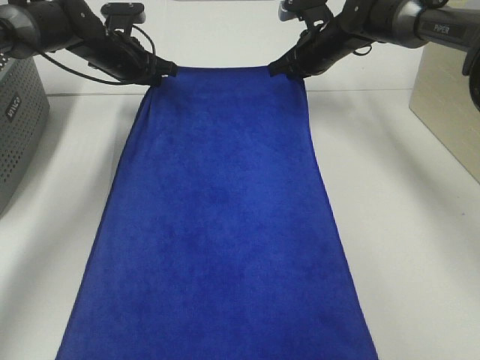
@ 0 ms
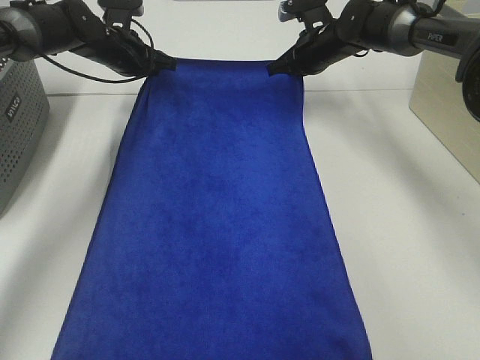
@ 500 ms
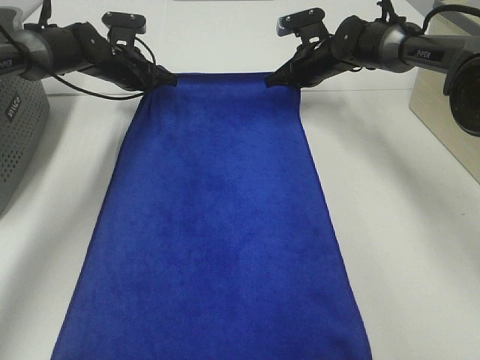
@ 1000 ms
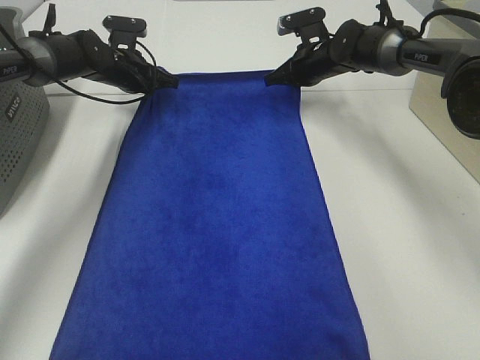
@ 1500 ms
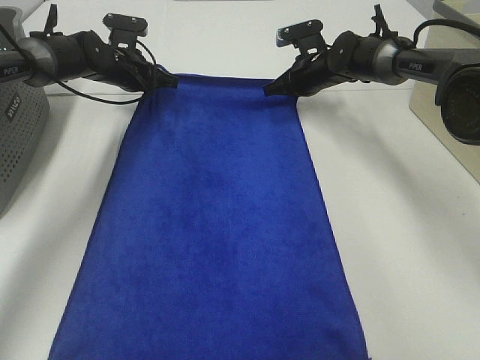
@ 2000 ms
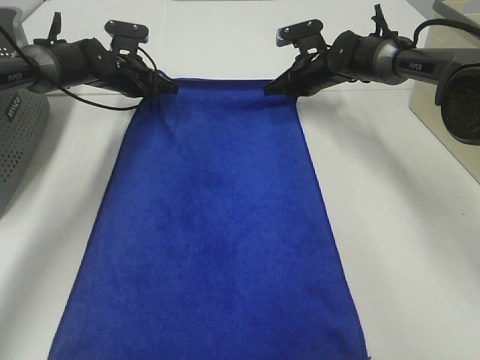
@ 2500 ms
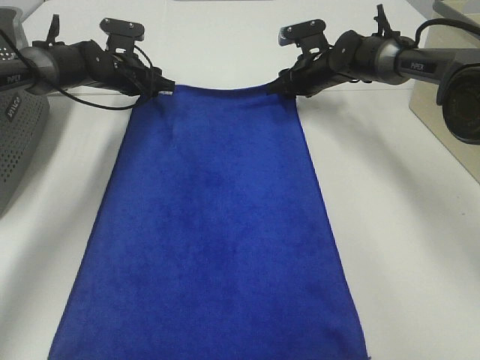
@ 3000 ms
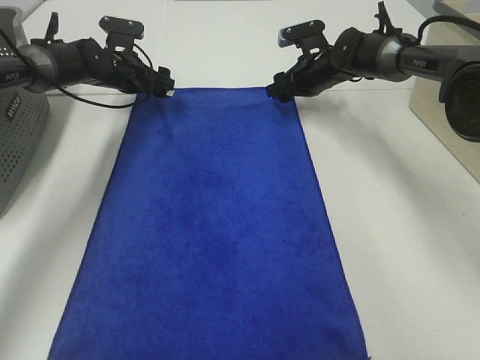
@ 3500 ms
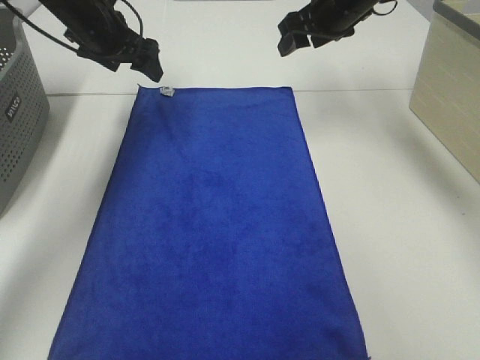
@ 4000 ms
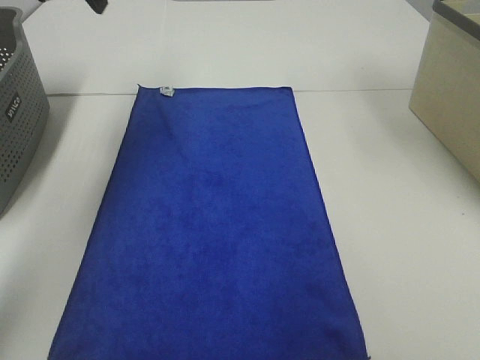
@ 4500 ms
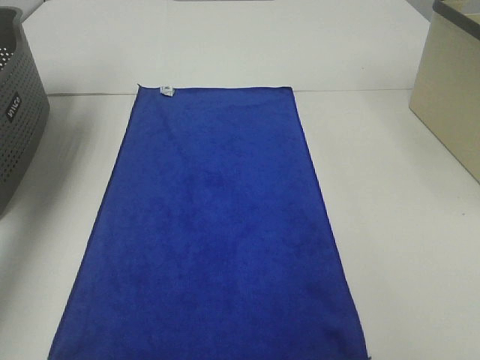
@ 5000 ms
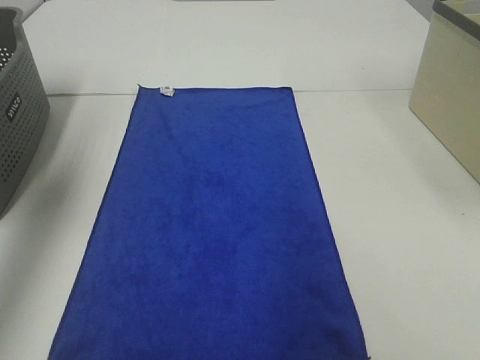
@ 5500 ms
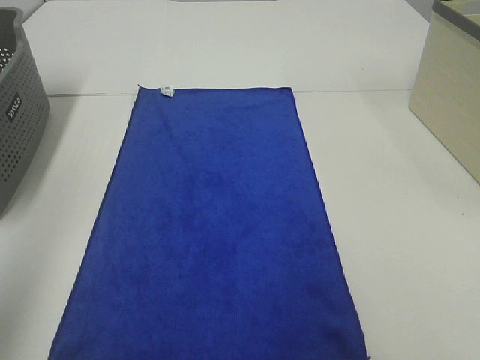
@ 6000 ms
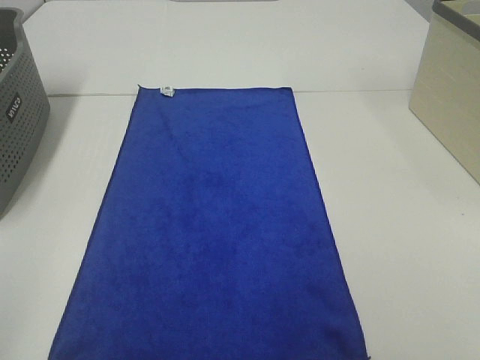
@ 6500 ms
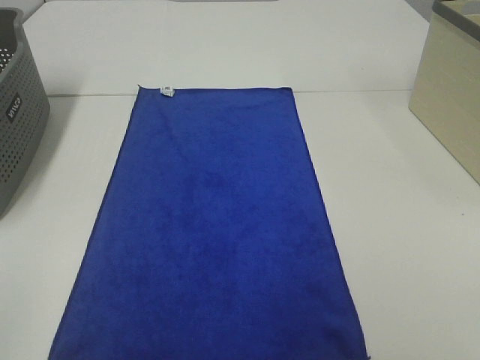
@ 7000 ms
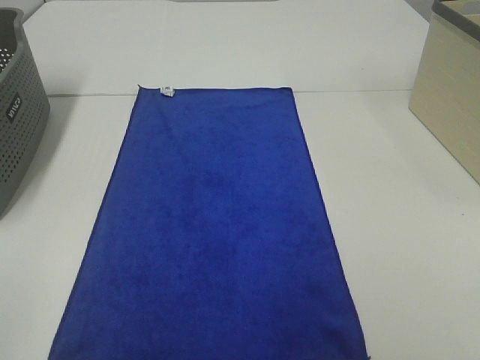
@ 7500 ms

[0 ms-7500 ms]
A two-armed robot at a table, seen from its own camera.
Task of the whole recording: Remove the towel and place it.
0 ms to 2000 ms: The right gripper is displaced downward by roughly 5 cm.
2000 ms to 4000 ms: The right gripper moves upward, about 15 cm, and opens its fingers, while the left gripper goes about 15 cm upward and backward, and opens its fingers.
4000 ms to 5500 ms: The right gripper shifts roughly 30 cm backward, upward and to the right. The left gripper travels backward, upward and to the left by some 30 cm.
5500 ms to 7500 ms: The left gripper goes about 35 cm backward.

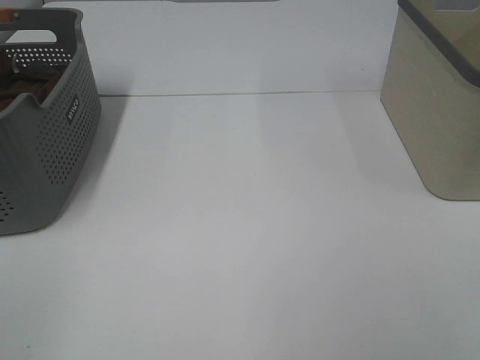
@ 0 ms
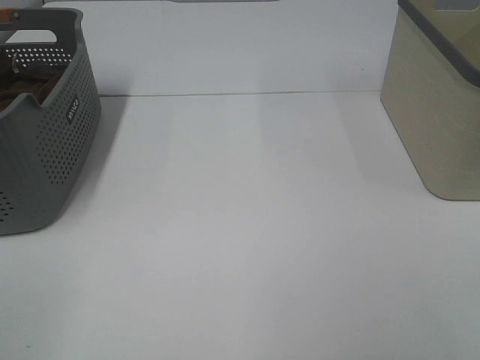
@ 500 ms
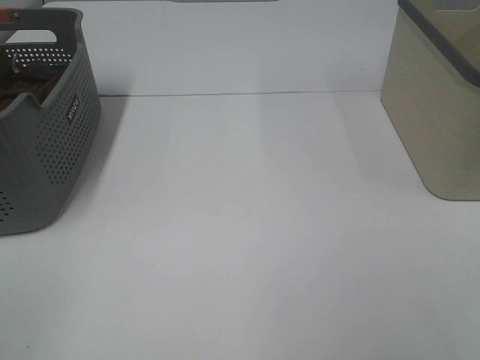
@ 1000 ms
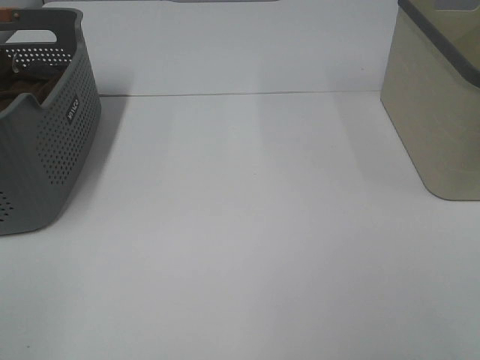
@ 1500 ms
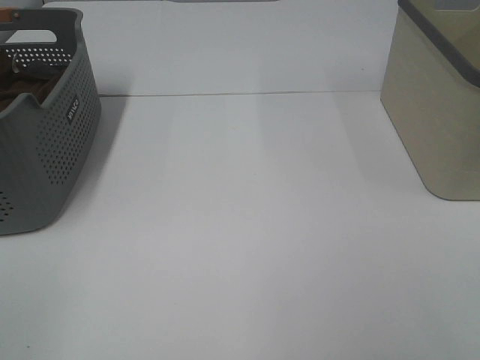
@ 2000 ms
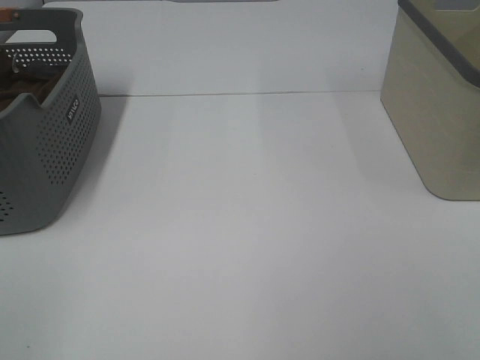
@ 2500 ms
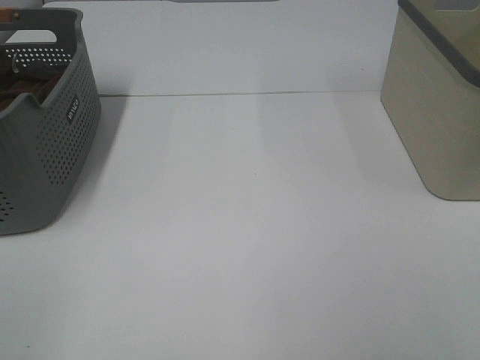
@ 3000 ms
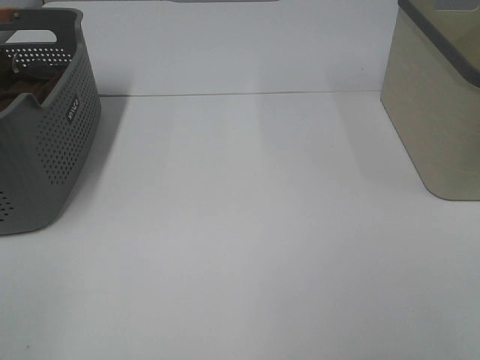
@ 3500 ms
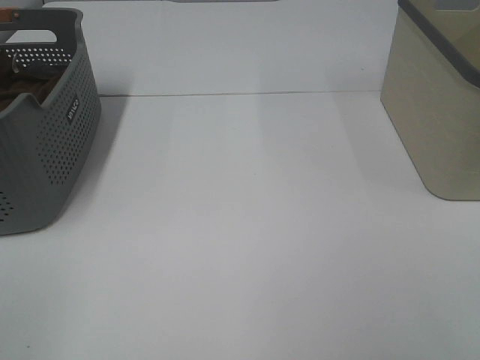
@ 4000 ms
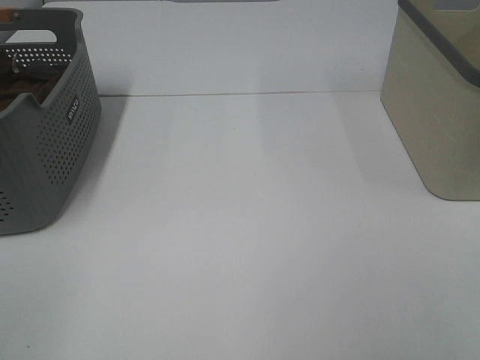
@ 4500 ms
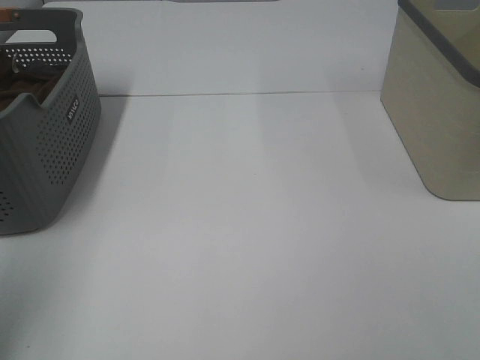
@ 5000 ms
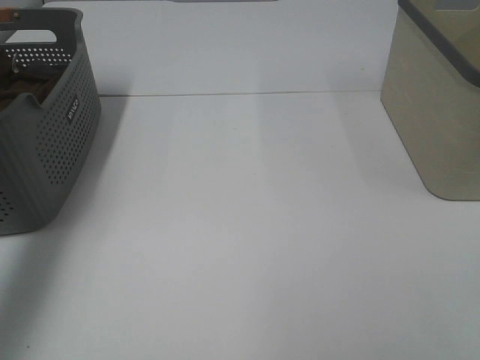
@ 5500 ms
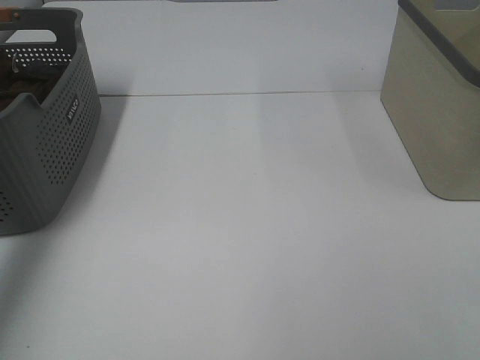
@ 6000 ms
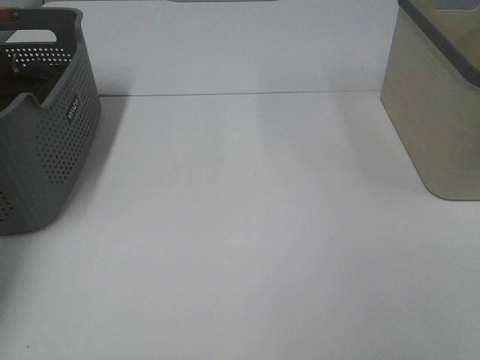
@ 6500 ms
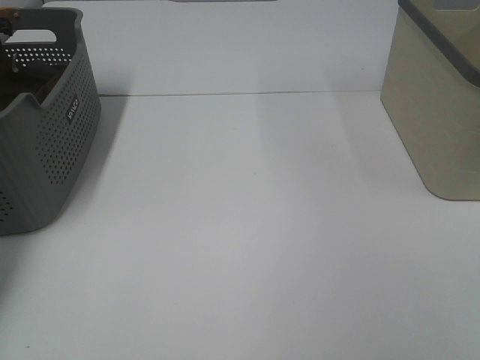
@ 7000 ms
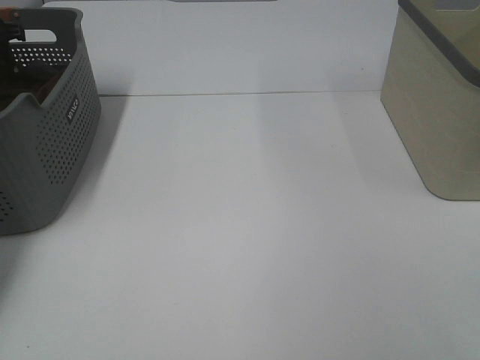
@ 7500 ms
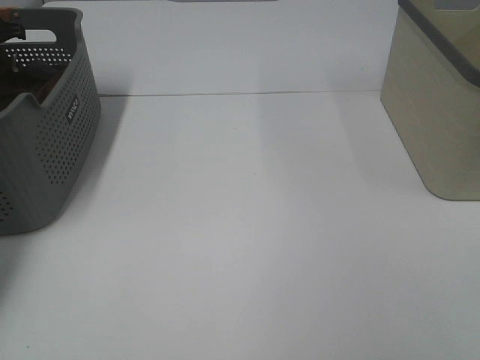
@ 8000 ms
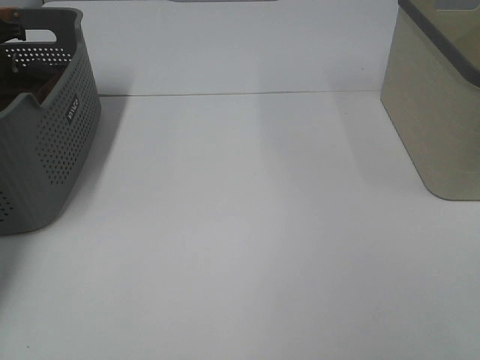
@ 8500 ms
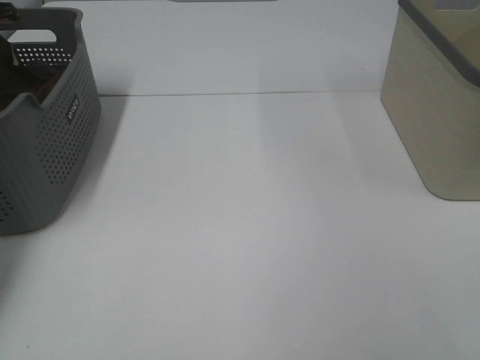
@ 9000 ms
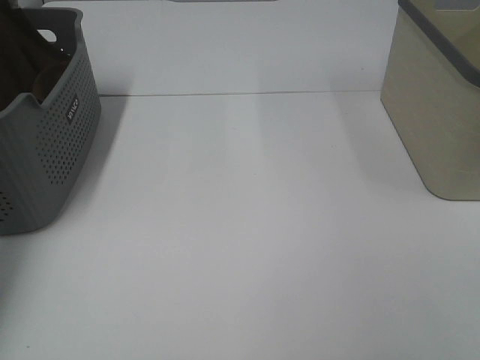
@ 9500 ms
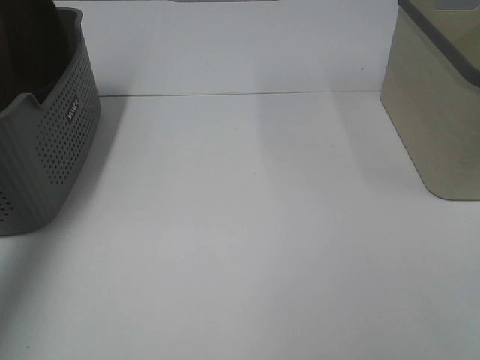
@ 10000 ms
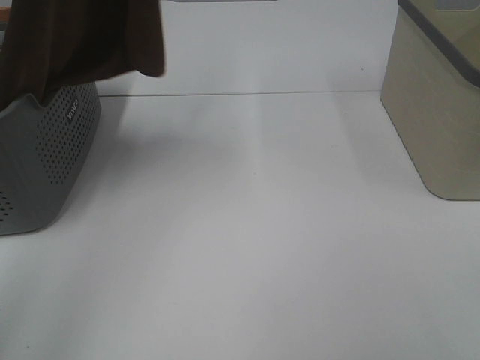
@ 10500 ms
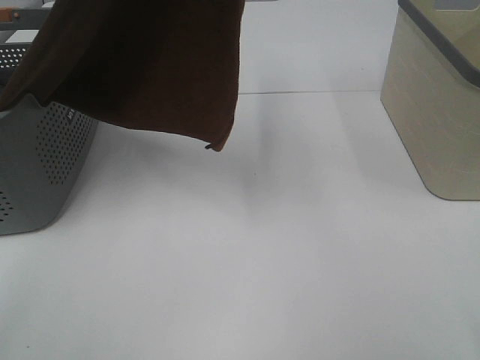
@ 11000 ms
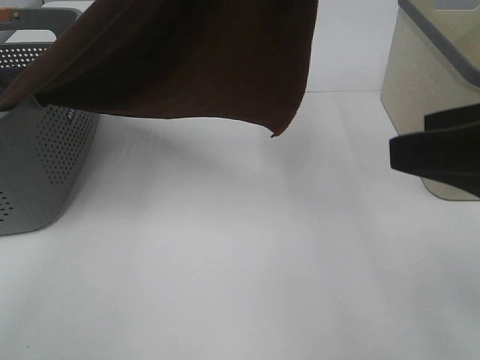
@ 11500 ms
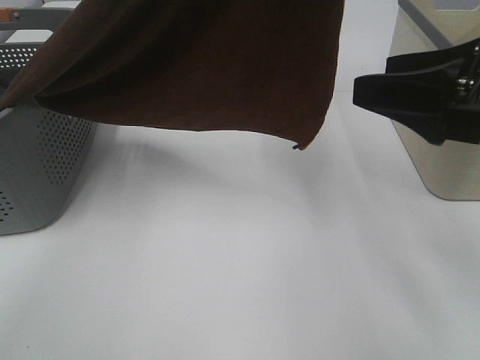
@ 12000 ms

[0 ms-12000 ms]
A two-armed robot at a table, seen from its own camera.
Task of the whole recording: Remove the towel and place it.
0 ms to 4000 ms: The two grippers keep their place.
4000 ms to 6000 ms: The left gripper travels forward by some 40 cm.
6000 ms to 8000 ms: The left gripper shifts about 20 cm forward, downward and to the left, and closes up.
8000 ms to 10000 ms: The left gripper shifts about 30 cm upward and backward, and closes.
10000 ms to 12000 ms: The right gripper shifts some 20 cm forward. The left gripper moves to the right and backward, some 35 cm.

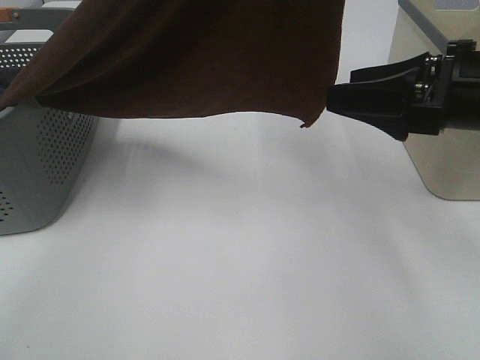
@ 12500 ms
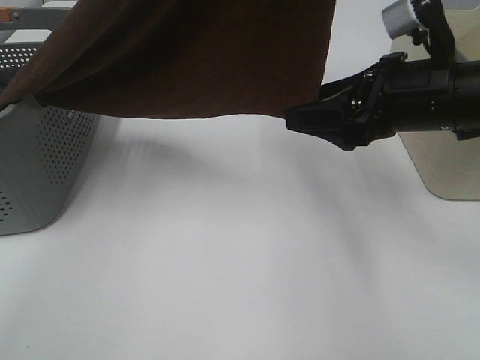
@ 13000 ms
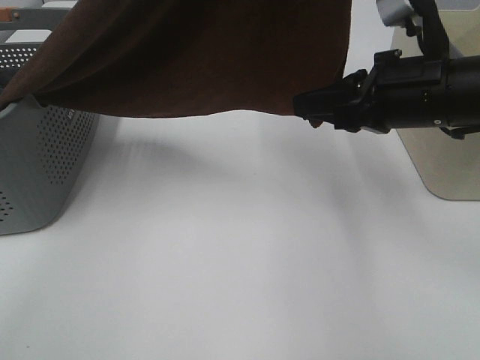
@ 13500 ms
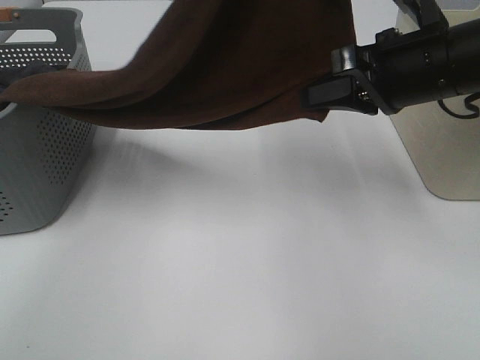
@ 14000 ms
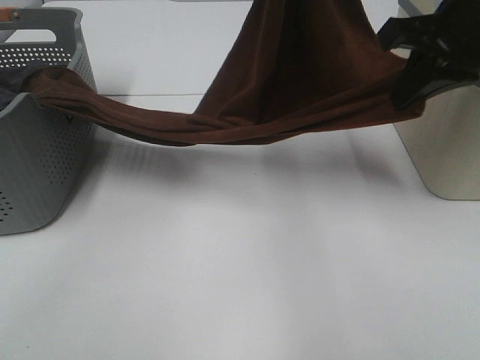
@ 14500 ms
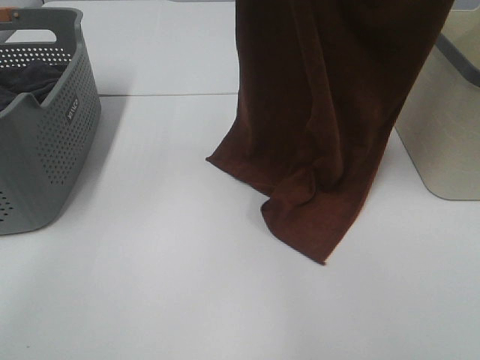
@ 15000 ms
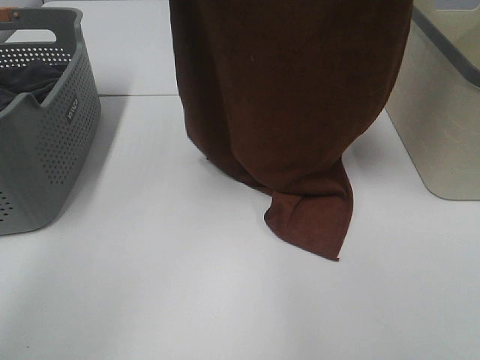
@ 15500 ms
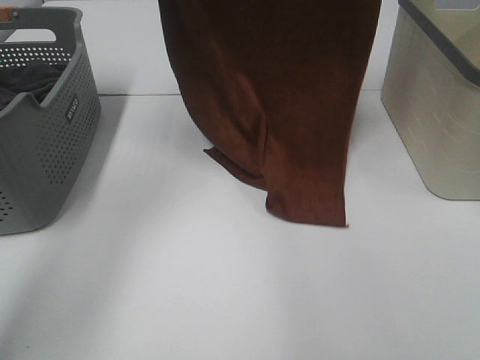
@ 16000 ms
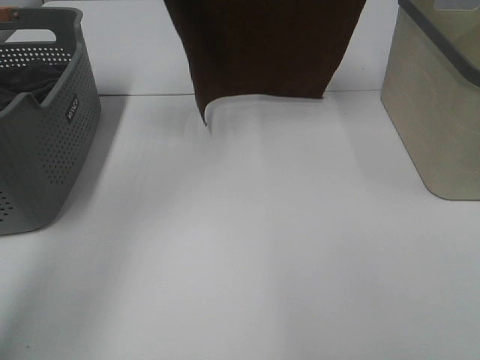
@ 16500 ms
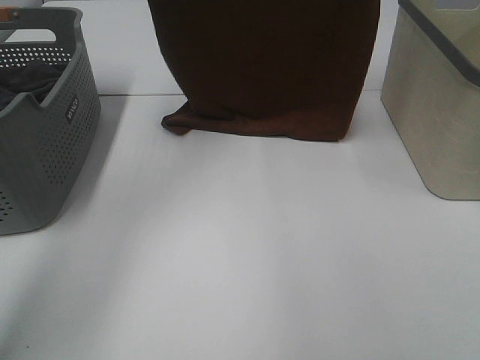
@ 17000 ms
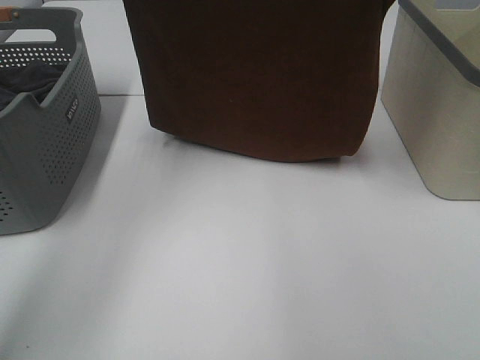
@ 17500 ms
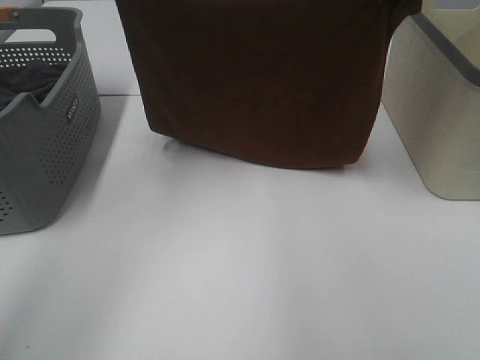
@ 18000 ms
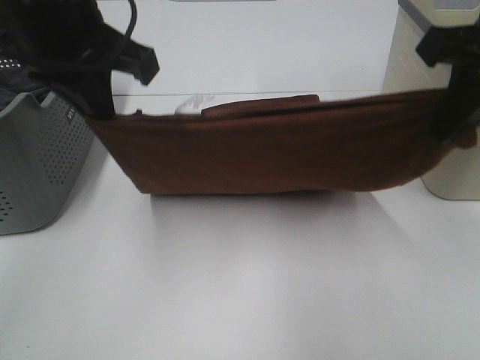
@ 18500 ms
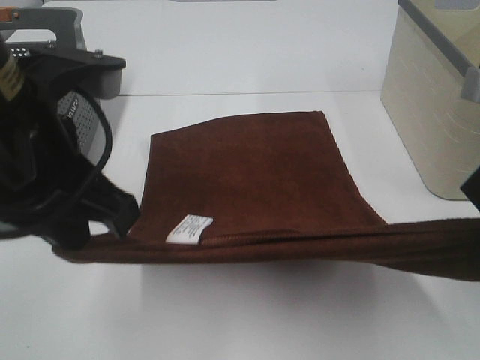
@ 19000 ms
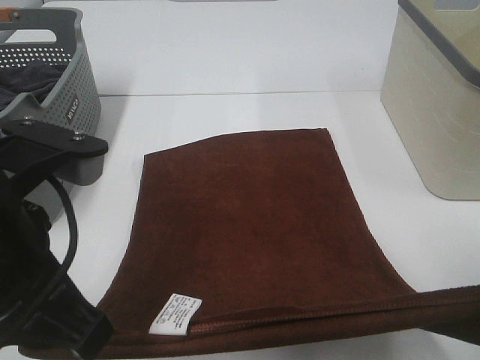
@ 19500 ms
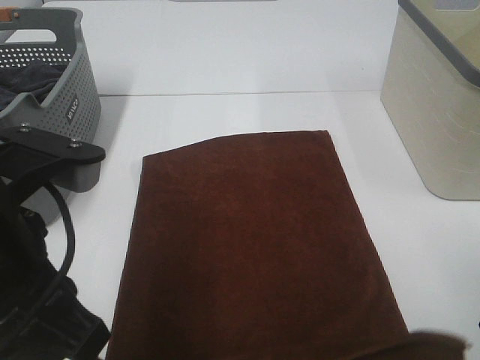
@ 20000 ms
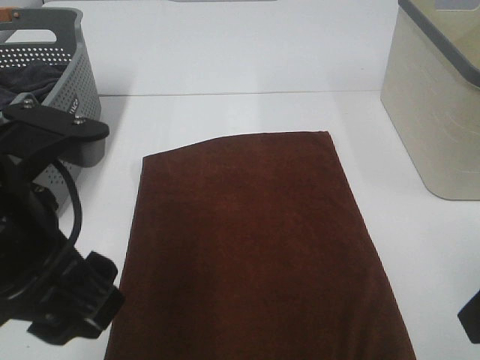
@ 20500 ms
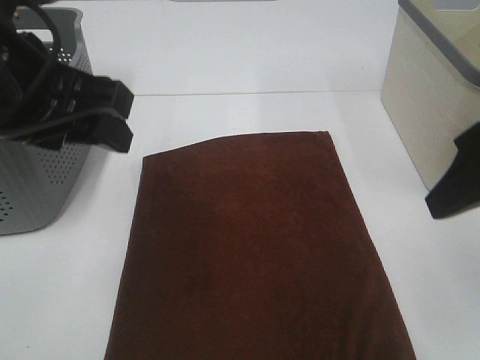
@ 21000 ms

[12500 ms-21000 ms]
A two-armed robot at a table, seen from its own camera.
Task of the whole recording: Remove the towel and place it.
Step, 13000 ms to 16000 ms: Left hand: spread the brown towel flat on the table.
Step, 13000 ms to 16000 ms: Right hand: spread the brown towel flat on the table.
12500 ms to 14500 ms: The right gripper moves upward and forward, about 10 cm, and closes up. Meanwhile the left gripper heads downward and forward, covering roughly 15 cm.
14500 ms to 16500 ms: The left gripper travels to the left, upward and forward by roughly 20 cm; the right gripper goes approximately 20 cm upward and forward.
16500 ms to 19000 ms: The grippers both shift backward and downward by approximately 35 cm.
19000 ms to 21000 ms: The left gripper shifts by some 5 cm, and opens. The right gripper opens up.
